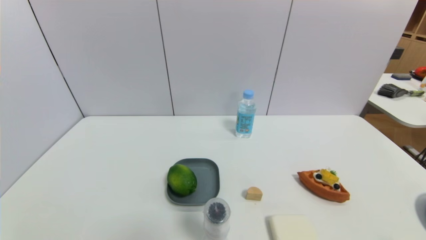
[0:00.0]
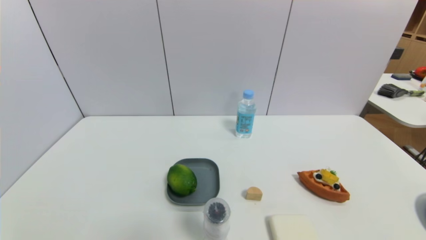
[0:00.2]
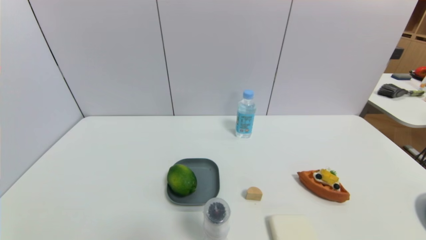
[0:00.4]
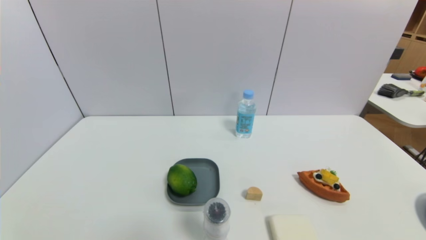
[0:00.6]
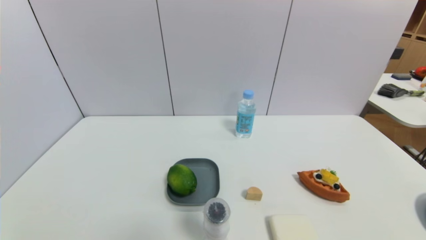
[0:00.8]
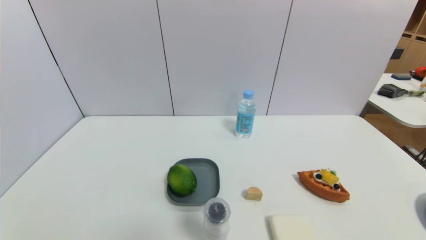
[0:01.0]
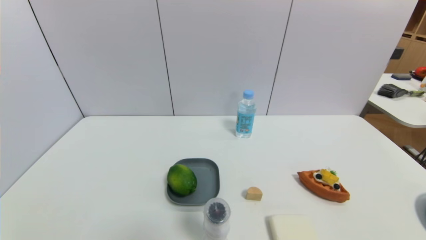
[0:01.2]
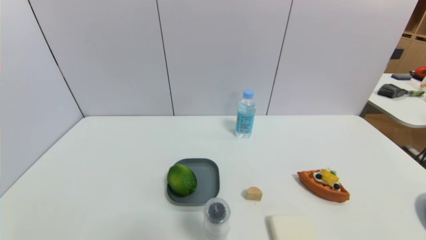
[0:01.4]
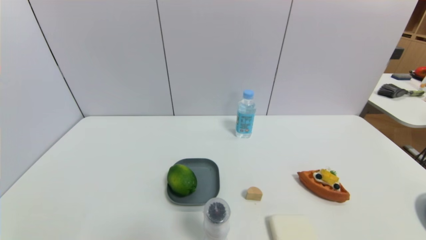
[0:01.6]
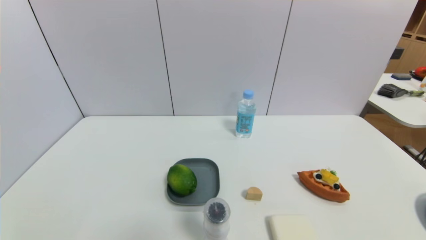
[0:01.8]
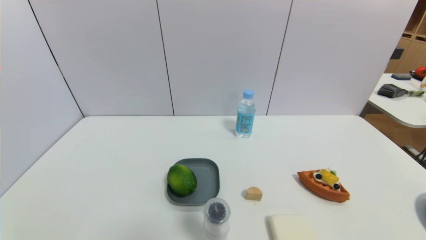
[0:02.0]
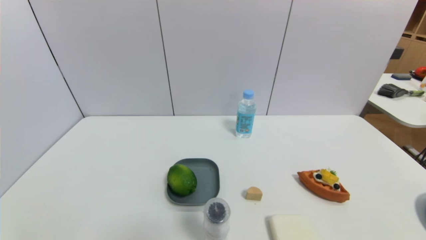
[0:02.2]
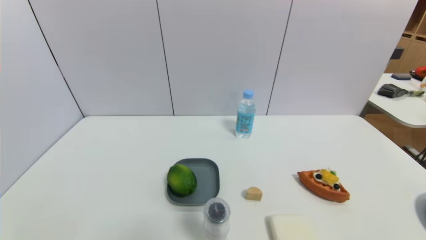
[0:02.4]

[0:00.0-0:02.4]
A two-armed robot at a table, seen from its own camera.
Task of the whole recording: use a gripper to pick the target object and place on the dish.
0:01.2 to 0:02.4: Neither gripper changes place.

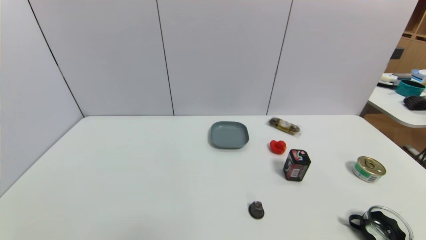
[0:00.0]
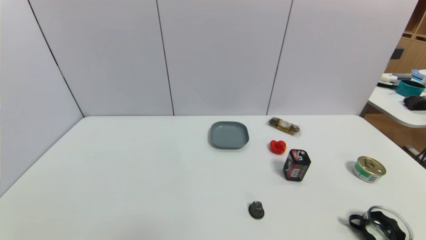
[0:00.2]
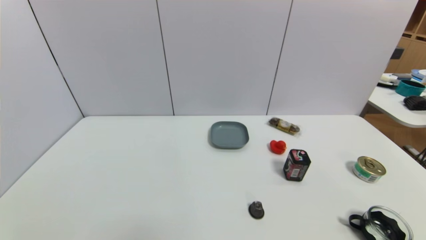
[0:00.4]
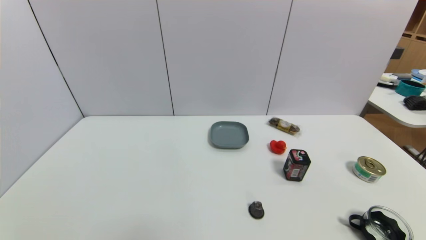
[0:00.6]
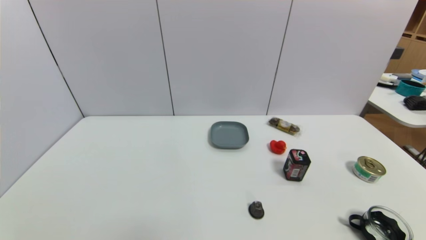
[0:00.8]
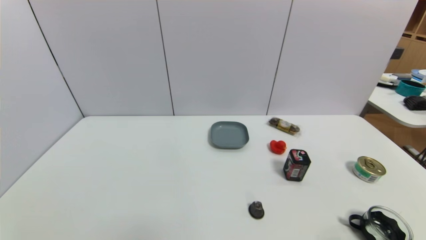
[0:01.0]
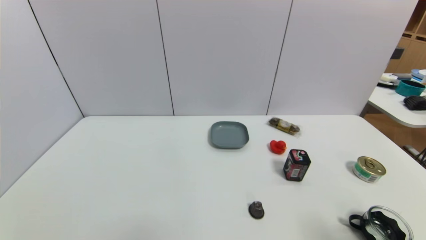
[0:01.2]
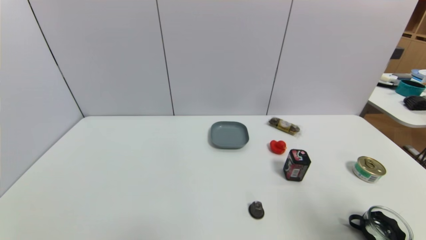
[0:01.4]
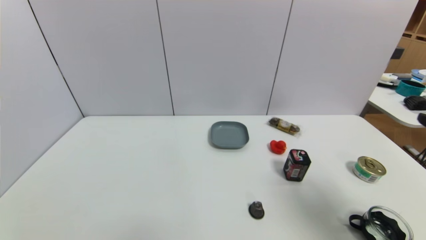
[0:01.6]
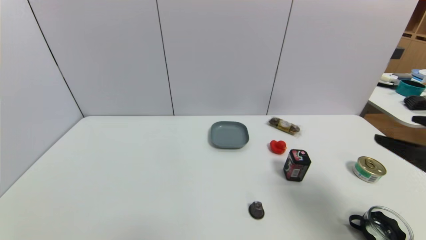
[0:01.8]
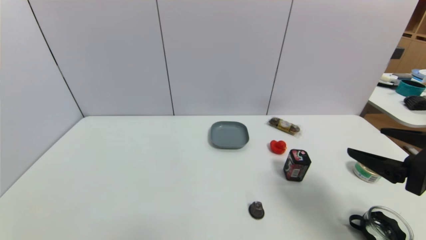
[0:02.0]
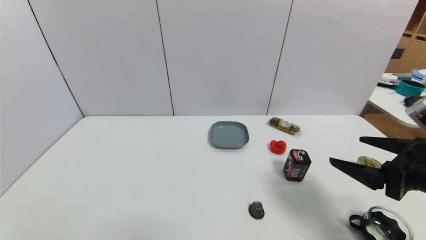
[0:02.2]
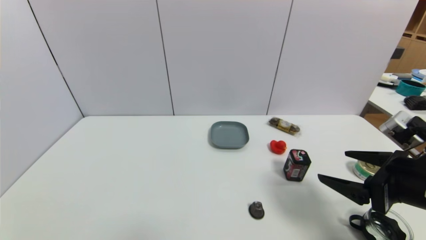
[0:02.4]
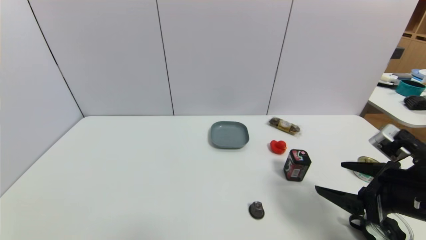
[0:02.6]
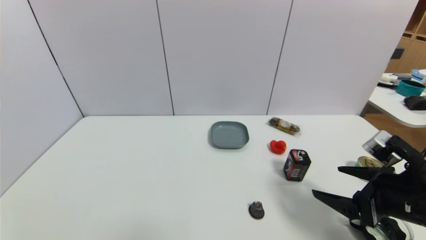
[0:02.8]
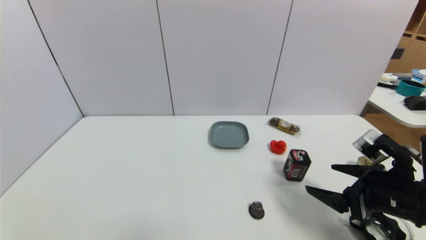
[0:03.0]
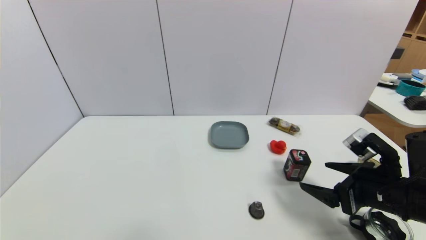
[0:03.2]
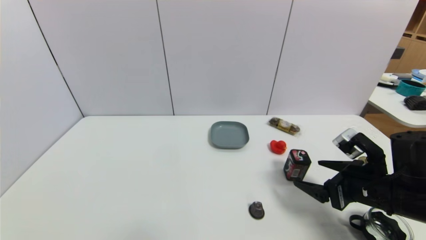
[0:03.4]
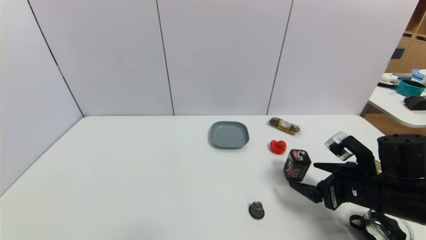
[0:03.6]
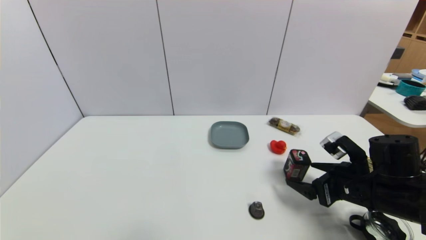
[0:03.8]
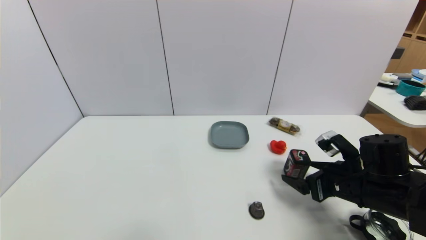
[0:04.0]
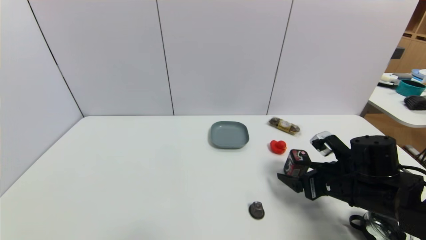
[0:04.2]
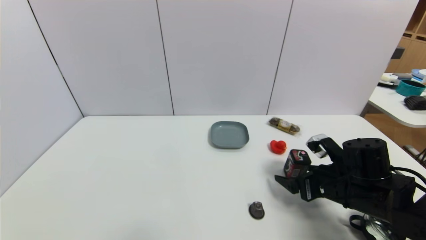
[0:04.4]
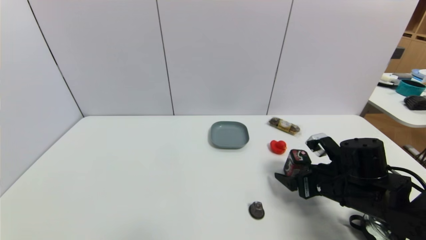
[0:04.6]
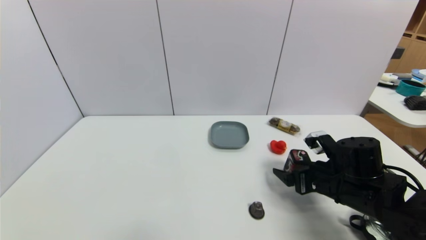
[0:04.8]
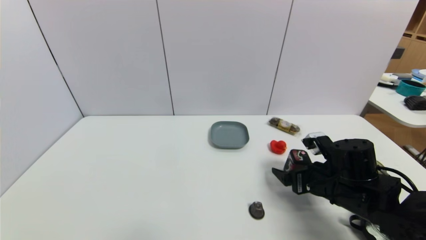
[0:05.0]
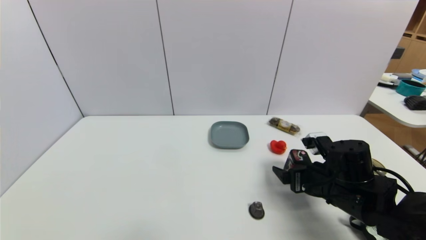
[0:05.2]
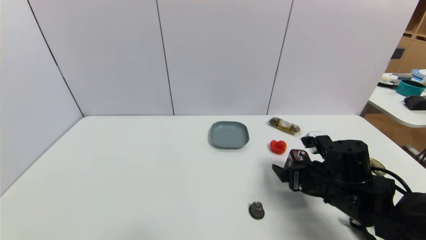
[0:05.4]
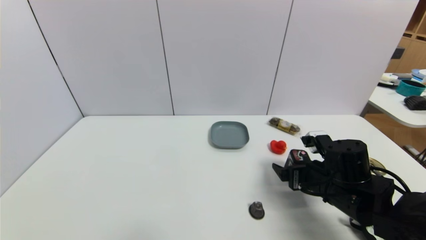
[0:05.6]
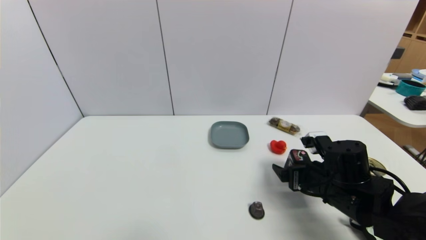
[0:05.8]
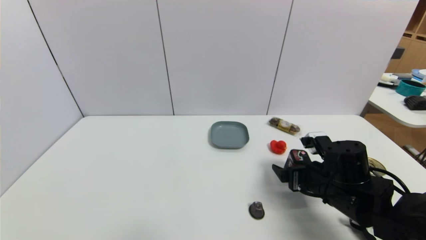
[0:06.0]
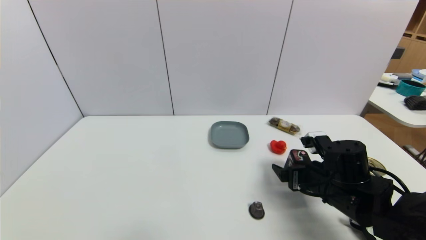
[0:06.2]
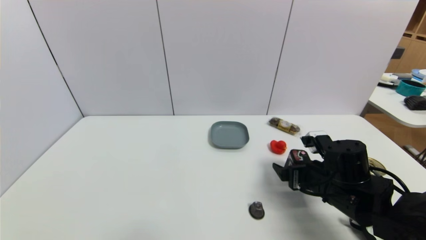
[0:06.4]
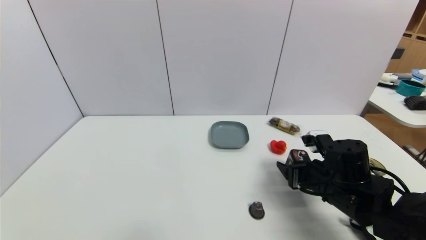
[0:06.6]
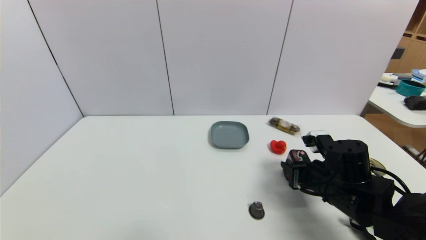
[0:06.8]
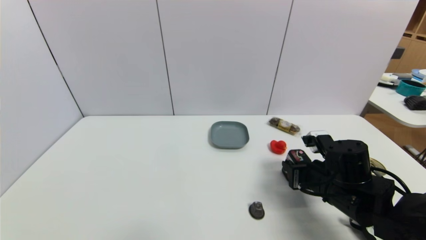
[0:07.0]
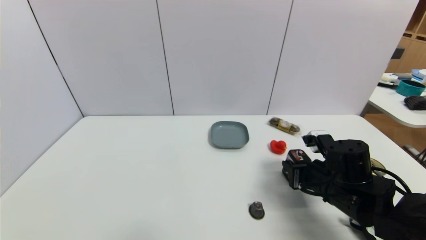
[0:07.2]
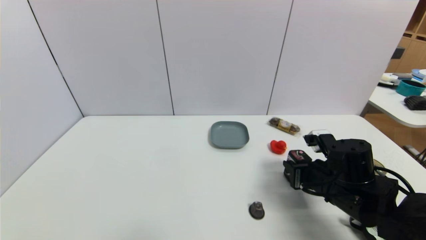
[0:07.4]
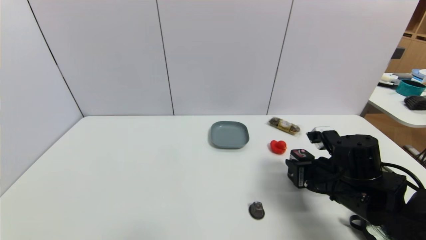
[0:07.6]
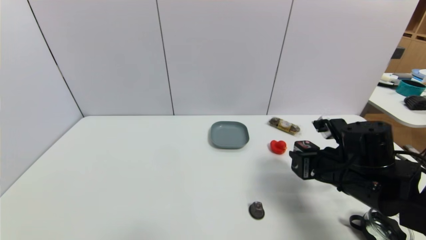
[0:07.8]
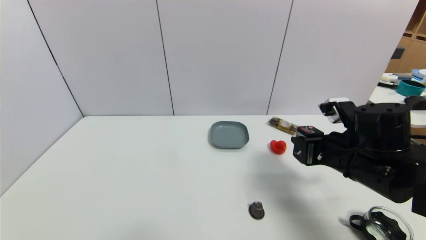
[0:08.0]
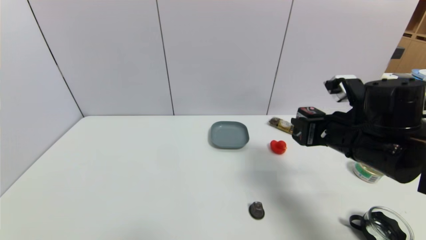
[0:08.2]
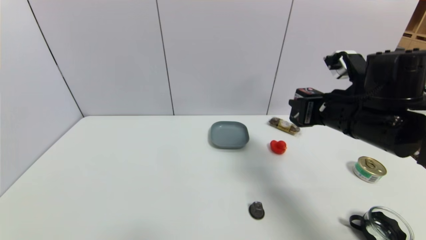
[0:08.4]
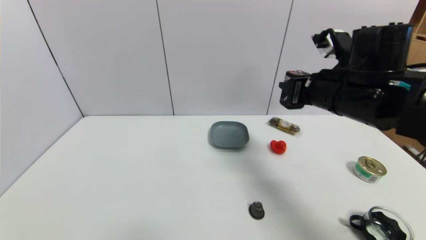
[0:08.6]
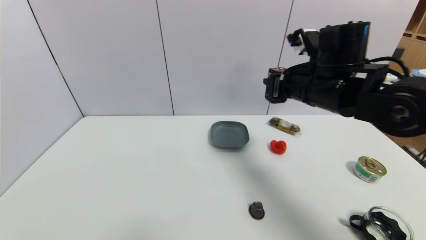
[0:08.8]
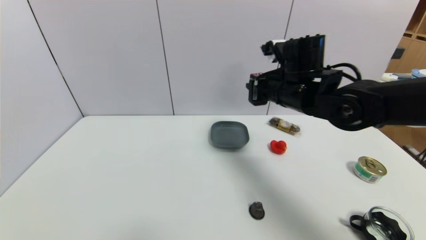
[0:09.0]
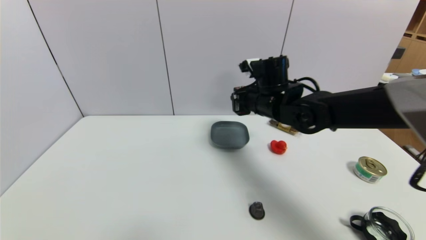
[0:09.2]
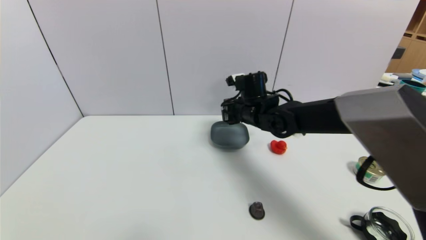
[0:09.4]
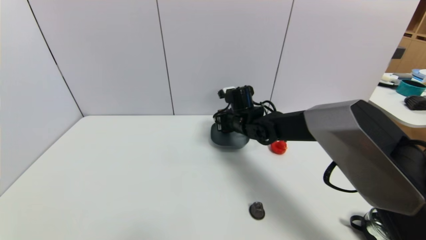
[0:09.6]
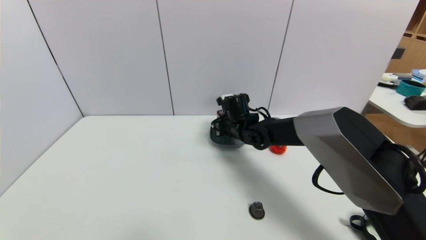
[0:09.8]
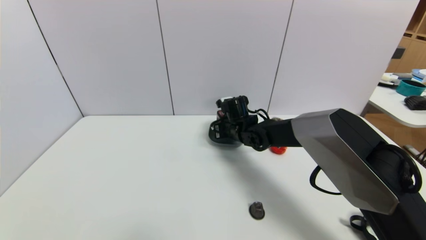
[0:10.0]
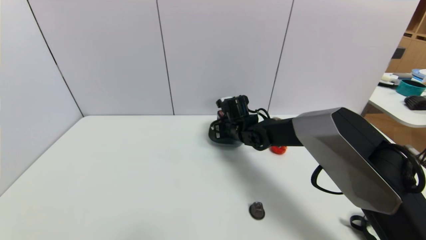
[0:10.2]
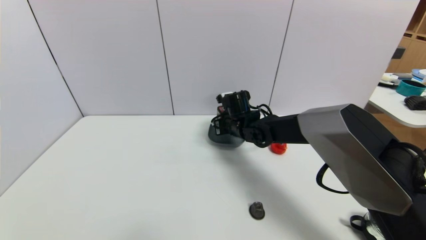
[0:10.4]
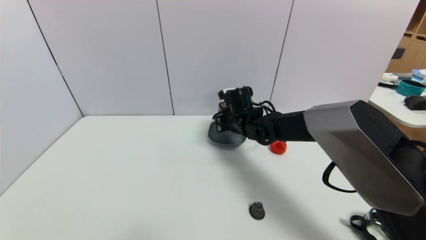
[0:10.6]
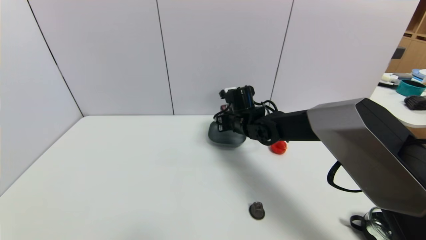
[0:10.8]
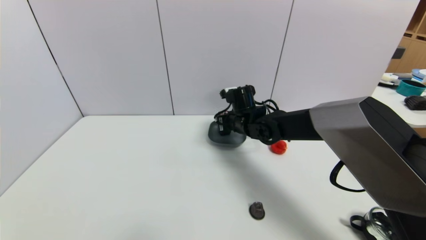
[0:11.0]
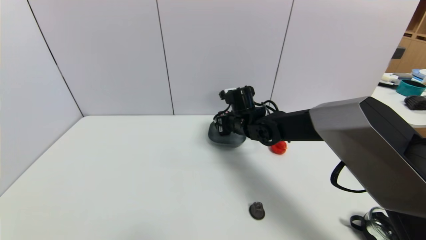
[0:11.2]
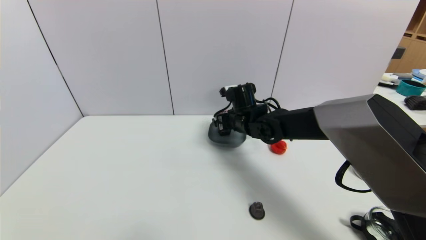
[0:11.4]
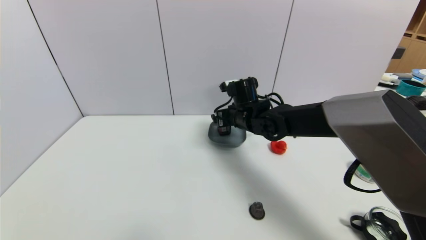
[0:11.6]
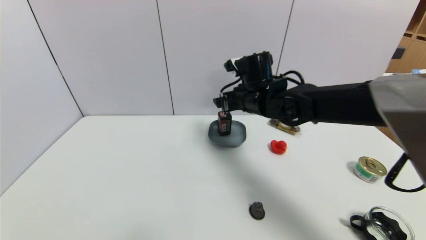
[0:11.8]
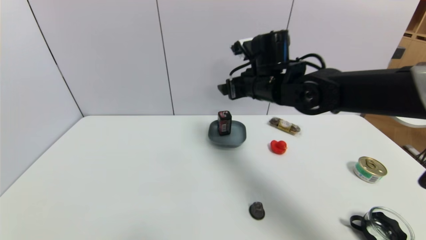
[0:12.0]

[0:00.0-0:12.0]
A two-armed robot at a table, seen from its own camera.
Task of the whole recording: use a gripper to pick the target object and place on the dish.
Step, 0:00.0 to 0:07.2: Grasp the square chewing gum with the right gripper.
Step, 0:07.4 to 0:11.6: Place the square chewing gum on the dish with the right gripper.
0:00.0 to 0:01.6: The right gripper heads upward and forward, covering approximately 25 cm.
0:01.6 to 0:03.0: The right gripper shifts approximately 15 cm downward, forward and to the left.
0:03.0 to 0:04.4: The right gripper heads forward and downward, covering about 10 cm.
0:04.4 to 0:06.0: The grippers stay close to where they were, moving slightly.
0:06.0 to 0:07.6: The right gripper closes.
0:07.6 to 0:09.0: The right gripper goes roughly 20 cm upward, forward and to the left.
0:09.0 to 0:10.4: The right gripper is displaced downward, forward and to the left by some 20 cm.
0:10.4 to 0:12.0: The right gripper moves upward and backward, approximately 15 cm, and opens up.

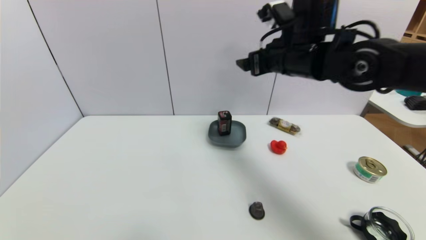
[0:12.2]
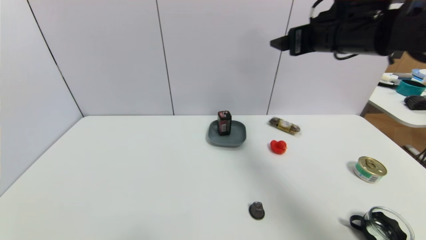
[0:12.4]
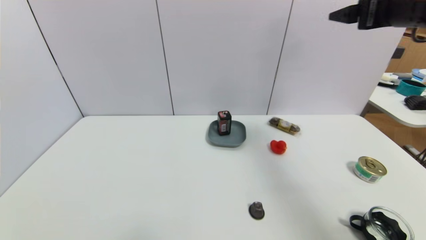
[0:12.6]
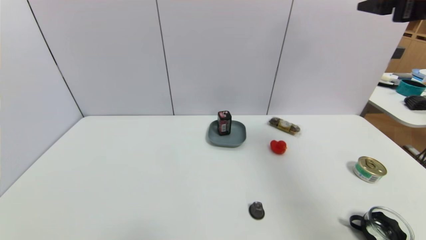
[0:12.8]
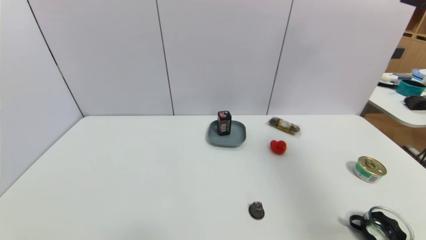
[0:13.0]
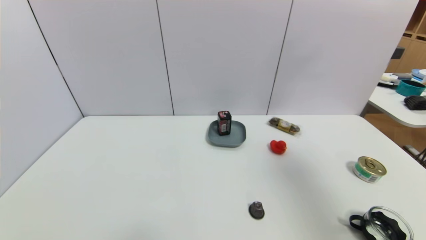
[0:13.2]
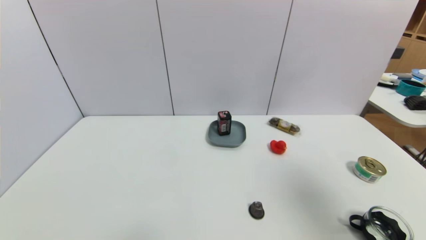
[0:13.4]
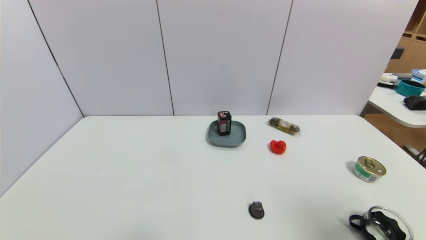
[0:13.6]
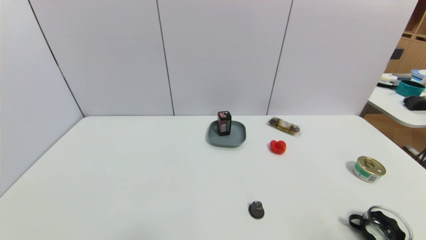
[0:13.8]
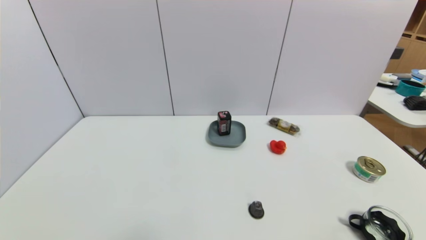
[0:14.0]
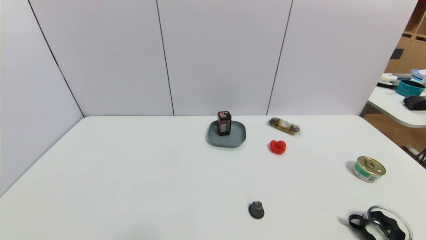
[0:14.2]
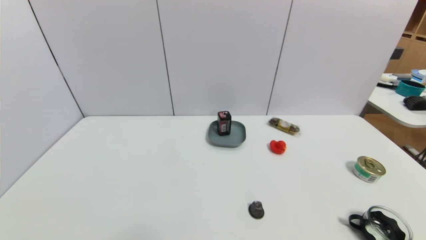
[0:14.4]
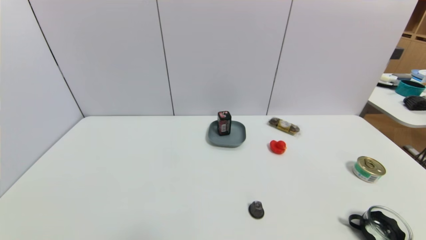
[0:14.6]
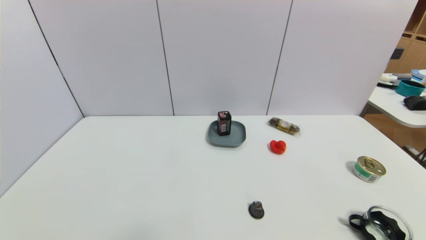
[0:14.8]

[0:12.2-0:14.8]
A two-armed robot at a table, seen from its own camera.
Task of the whole recording: use a gripper to pick the target object and place on the dish.
0:12.2 to 0:13.4: The right gripper travels backward and to the right by about 30 cm.
0:13.4 to 0:14.8: The right gripper shifts approximately 30 cm downward and backward.
